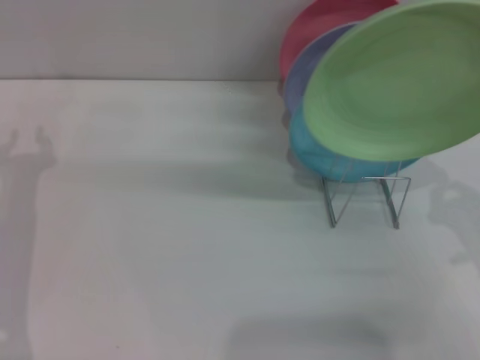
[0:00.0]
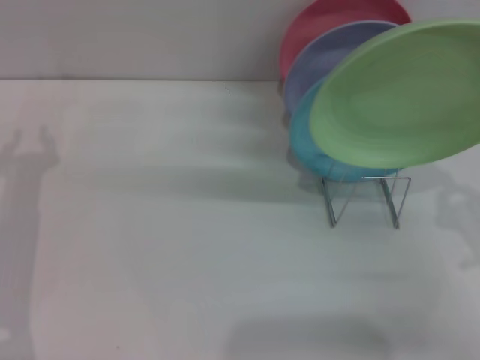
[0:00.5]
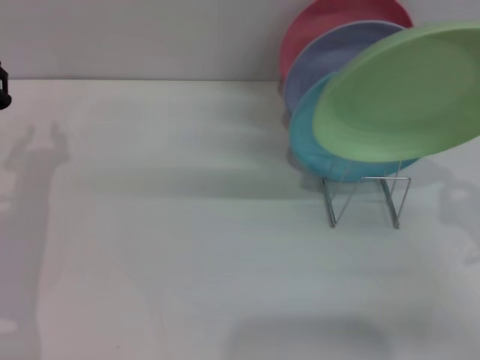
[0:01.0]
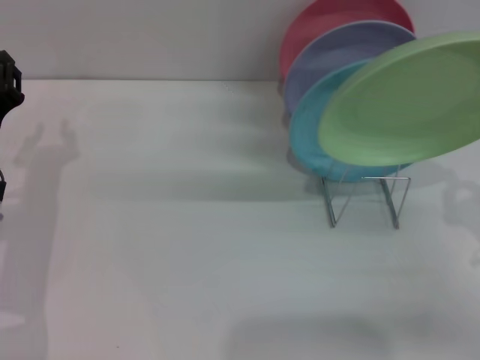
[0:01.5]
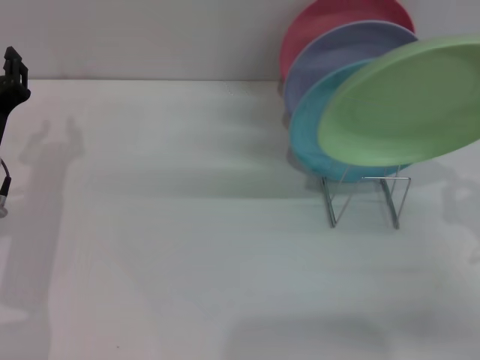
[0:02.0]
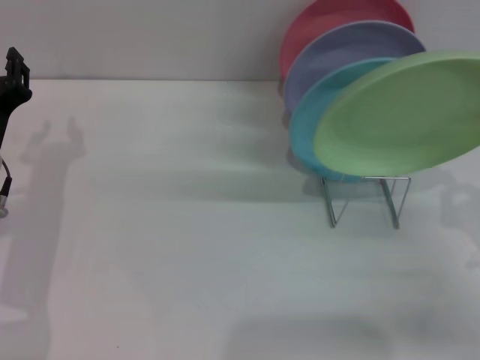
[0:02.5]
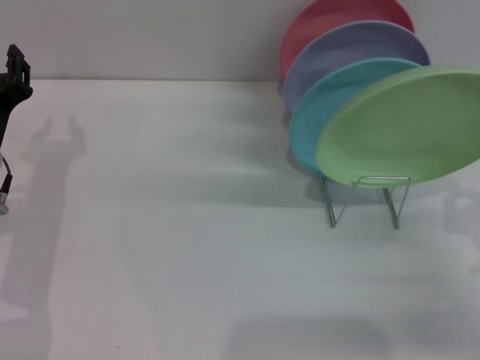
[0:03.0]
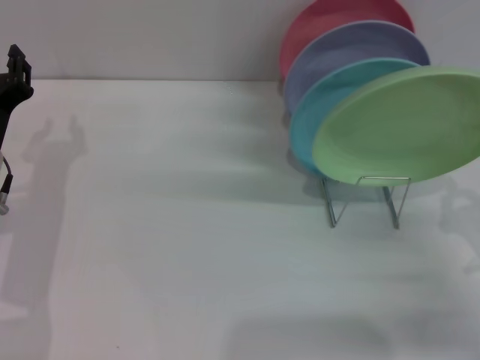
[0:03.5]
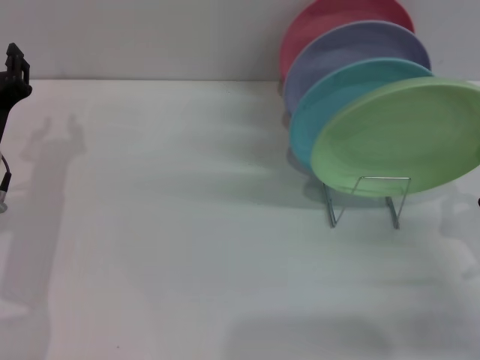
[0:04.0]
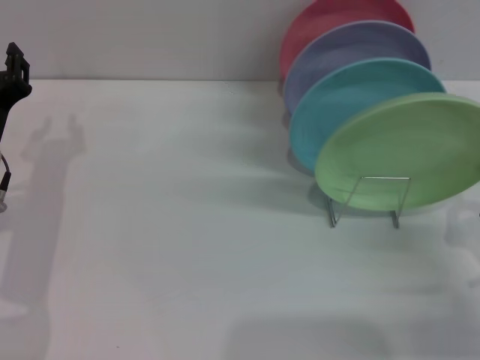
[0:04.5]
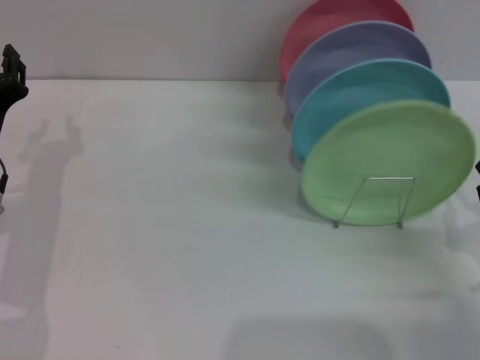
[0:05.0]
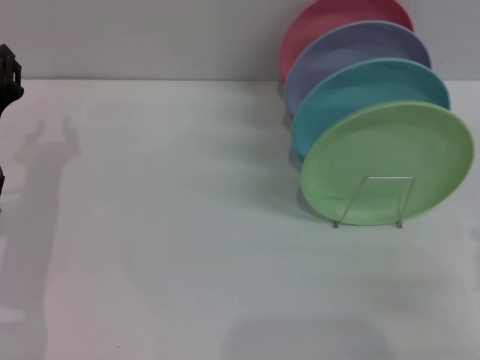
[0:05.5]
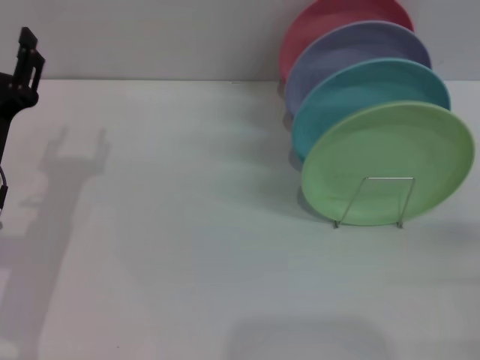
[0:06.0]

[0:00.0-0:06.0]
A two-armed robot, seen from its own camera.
Task of the whole recording: Grip the plate with one hand, pass it to the other, then set it on the shelf.
Step, 0:00.0 to 0:05.0: Place the plate on the shelf with the right gripper.
0:00.0 to 0:02.0: The right gripper ends up roughly 5 cm from where it was.
0:02.0 to 0:04.0: The grippers make only small movements.
0:04.0 to 0:06.0: The right gripper heads to the right, covering approximately 5 cm, reaches approximately 10 cm backward, then returns, and opens up.

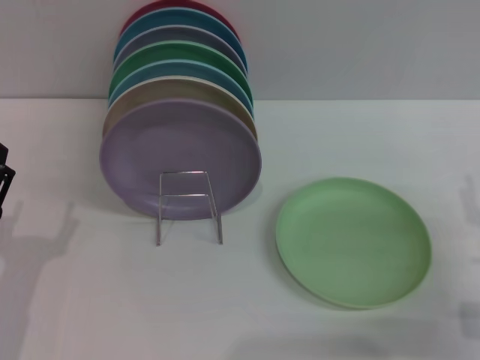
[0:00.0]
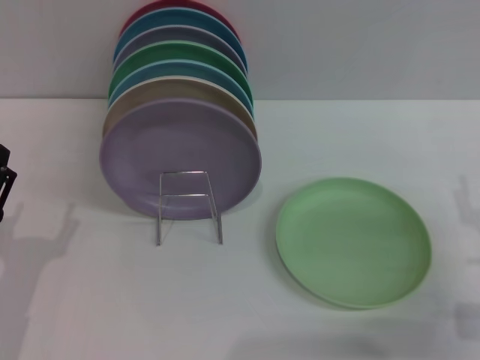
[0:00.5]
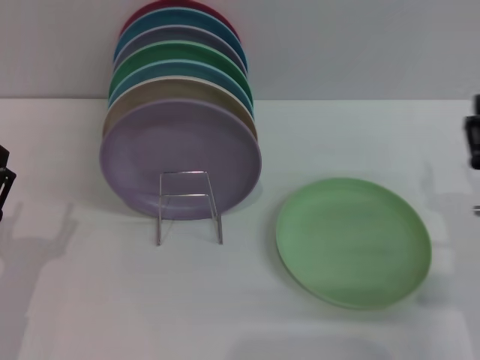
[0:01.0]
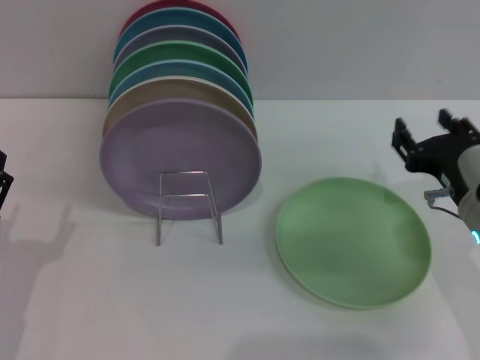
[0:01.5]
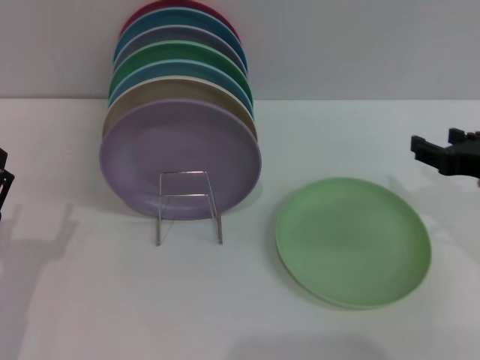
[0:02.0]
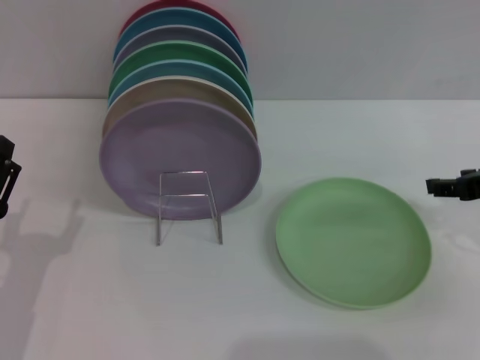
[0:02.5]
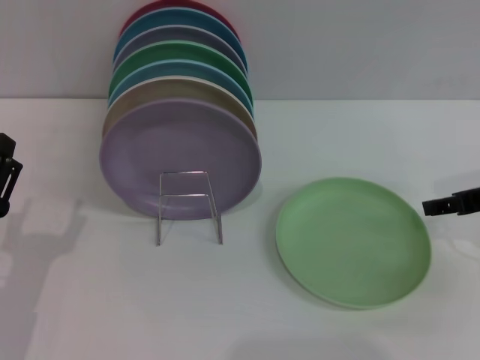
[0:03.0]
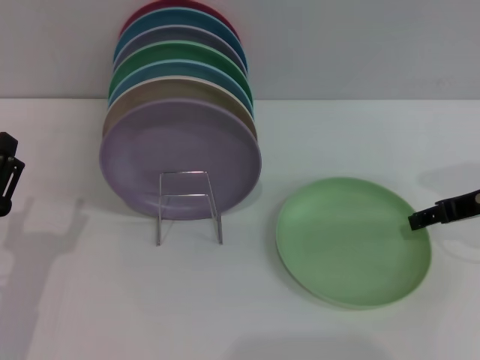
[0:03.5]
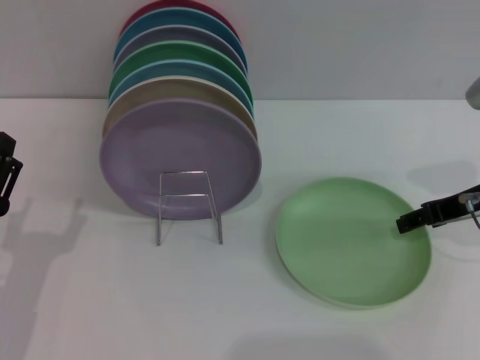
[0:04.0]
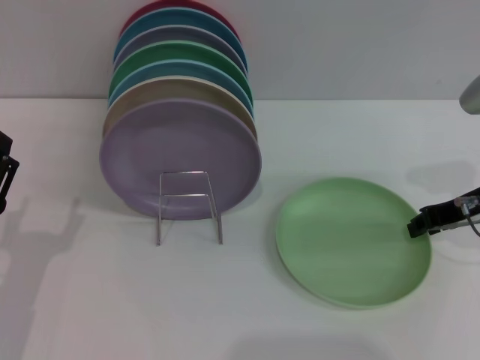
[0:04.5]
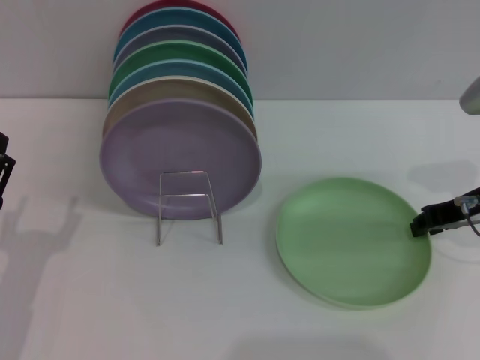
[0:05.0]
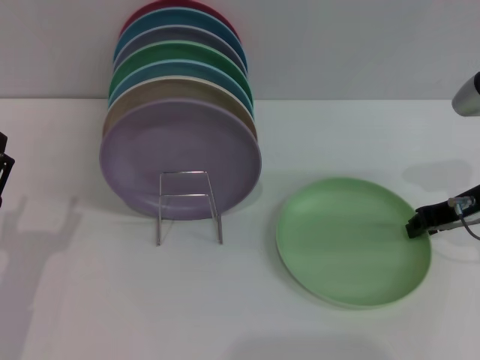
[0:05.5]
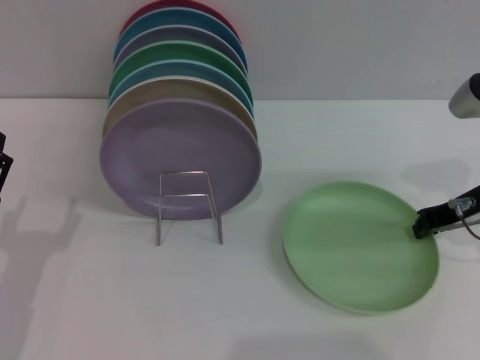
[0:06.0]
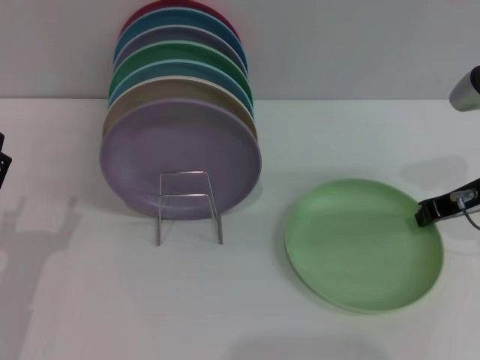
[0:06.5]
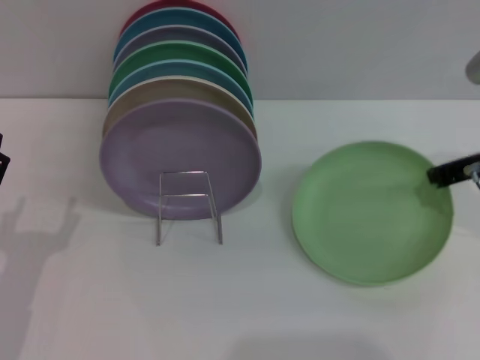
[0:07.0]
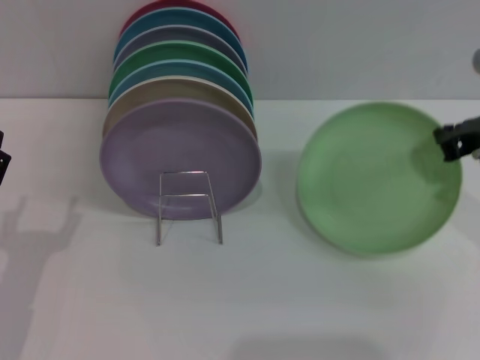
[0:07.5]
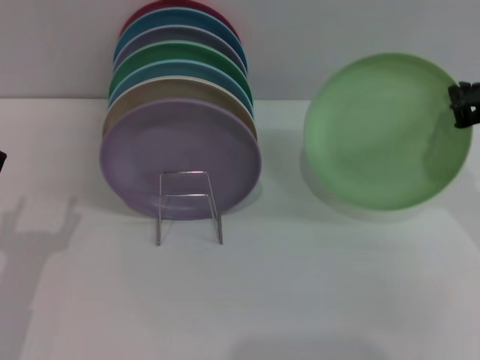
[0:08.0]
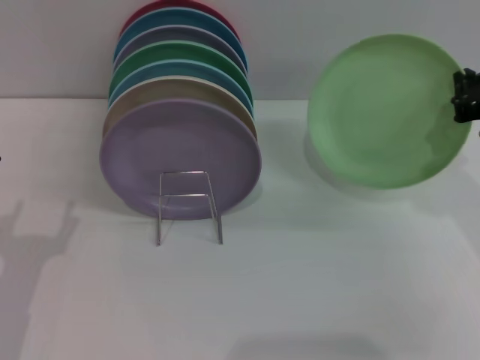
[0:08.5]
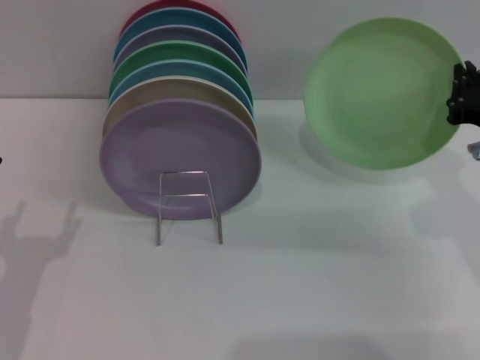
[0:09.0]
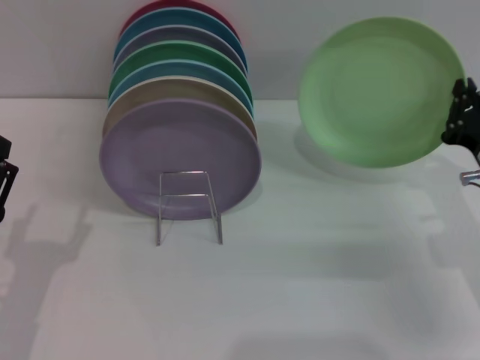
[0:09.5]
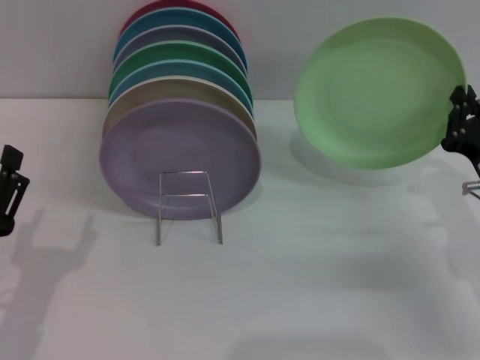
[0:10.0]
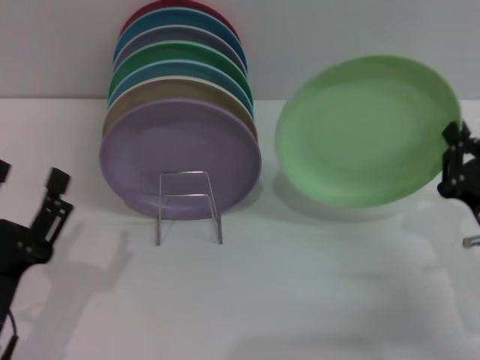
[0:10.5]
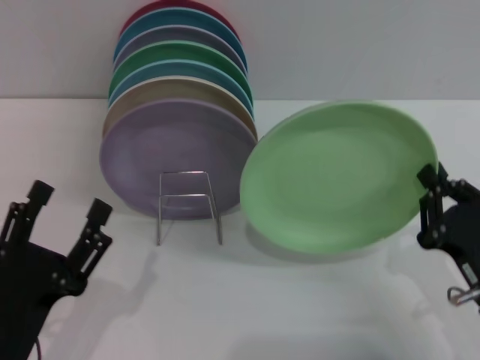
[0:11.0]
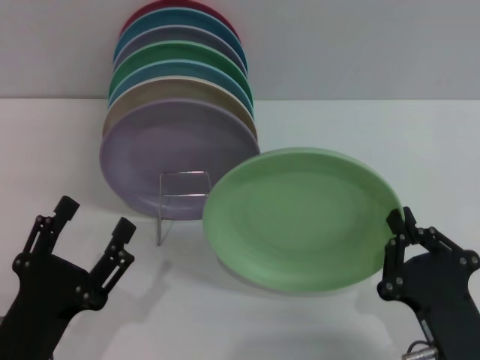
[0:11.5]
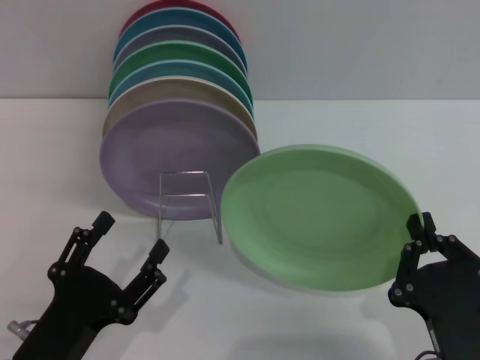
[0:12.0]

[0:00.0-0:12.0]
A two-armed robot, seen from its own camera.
Task of the whole recording: Grip the plate with one hand, pass it to the other, then set it on the shelf.
Step, 0:00.0 to 0:07.5: Pick up the plate with the right gripper.
0:00.0 to 0:02.0: The right gripper travels upward and forward by approximately 10 cm.
0:02.0 to 0:04.0: The right gripper heads forward, covering roughly 5 cm.
0:04.0 to 0:06.0: The right gripper closes up.
0:06.0 to 0:08.0: The right gripper travels upward by about 5 cm.
0:08.0 to 0:10.0: The right gripper heads downward, covering roughly 15 cm.
0:10.0 to 0:12.0: The left gripper is displaced to the right by roughly 5 cm. The right gripper travels backward and to the left by some 20 cm.

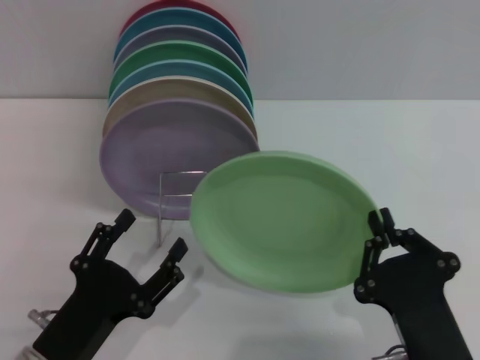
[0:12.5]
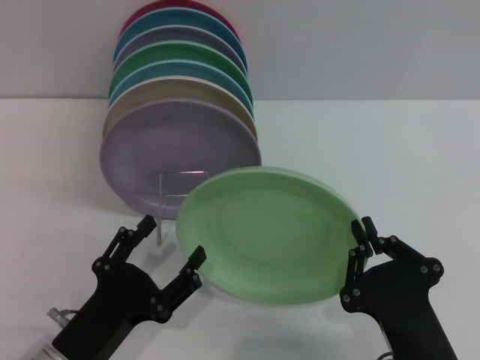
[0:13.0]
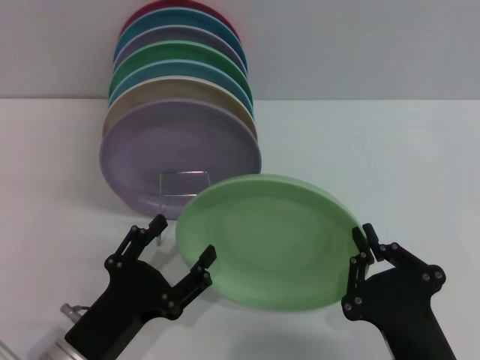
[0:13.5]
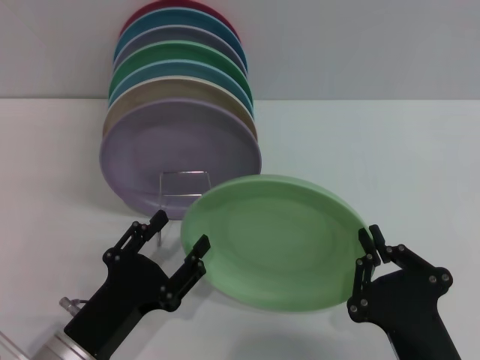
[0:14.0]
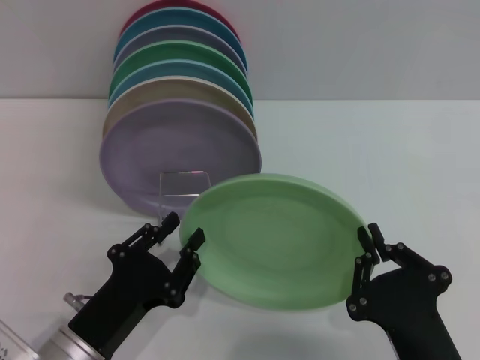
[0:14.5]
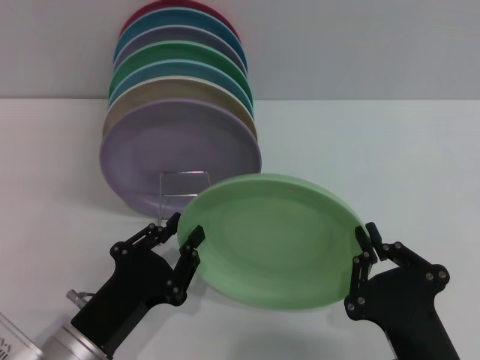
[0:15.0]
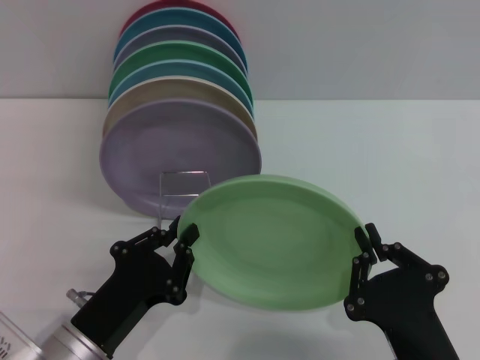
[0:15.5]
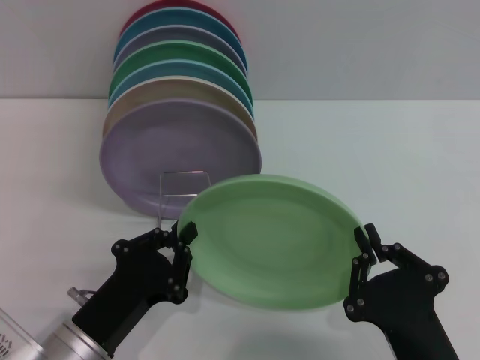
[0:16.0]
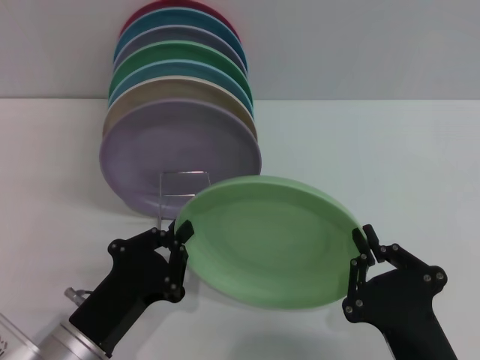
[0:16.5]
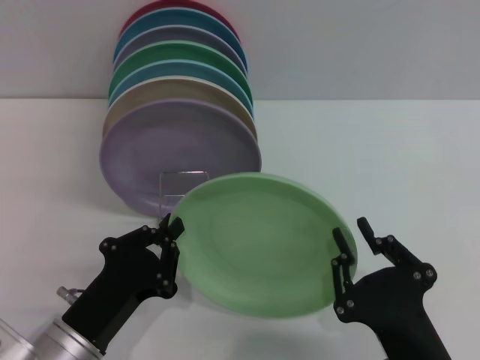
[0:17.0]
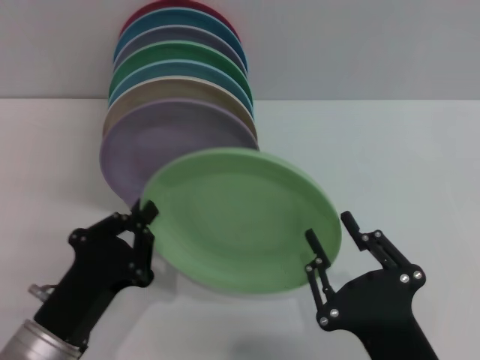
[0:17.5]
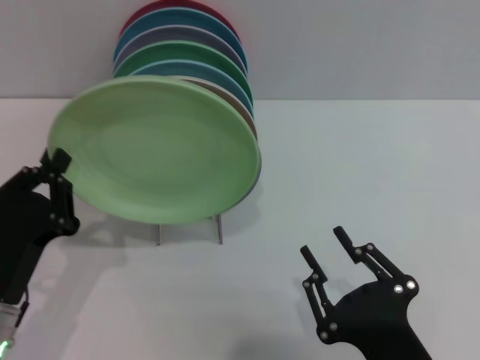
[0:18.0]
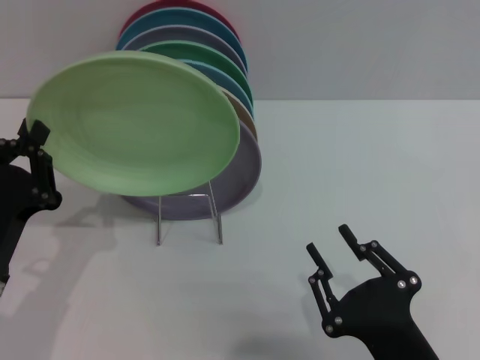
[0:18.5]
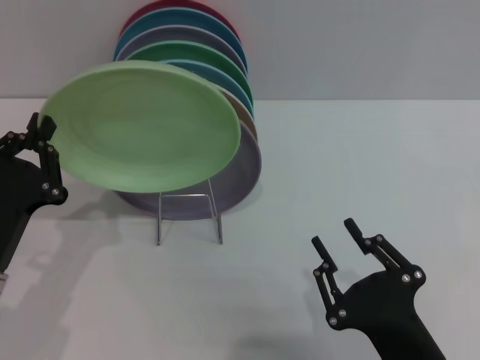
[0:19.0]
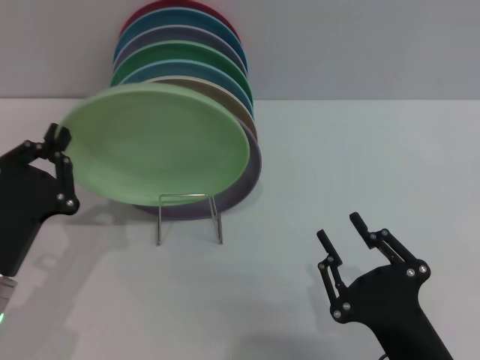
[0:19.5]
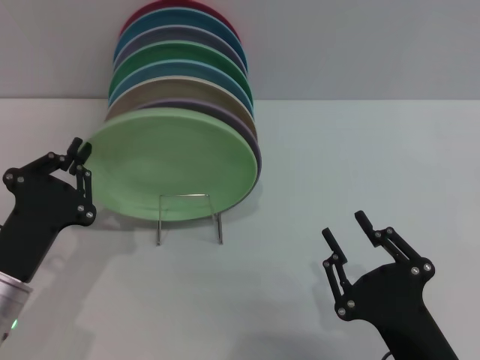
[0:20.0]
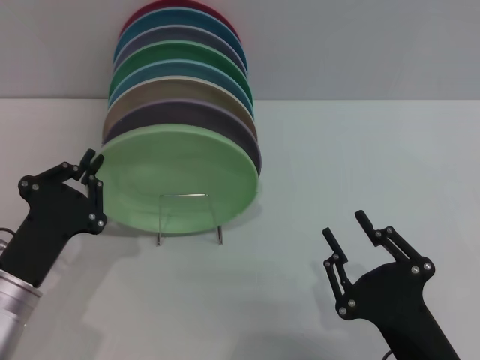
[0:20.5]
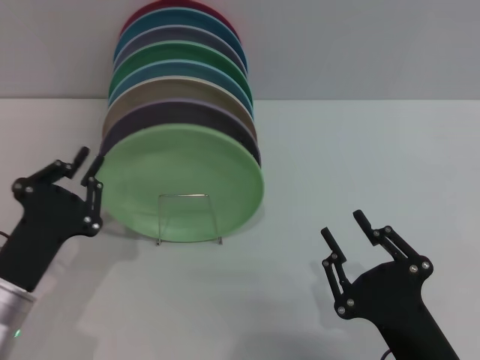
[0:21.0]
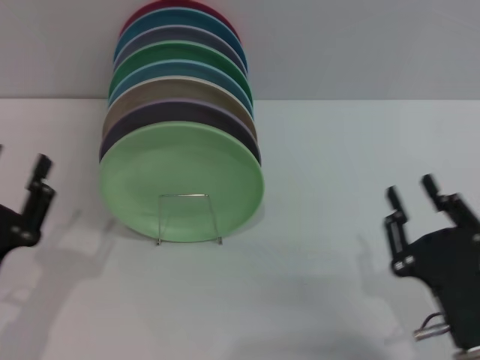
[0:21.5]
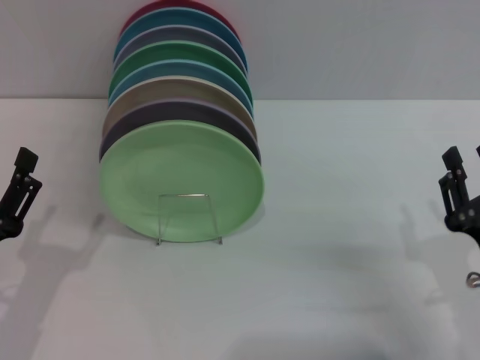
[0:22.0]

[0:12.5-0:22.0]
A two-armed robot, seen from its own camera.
Task of the whole recording: Grip the plate with one hand, pass it to the other, then set it on the shelf.
Step, 0:12.5 to 0:17.5: Pass the plate from the right gripper to the left gripper.
Step, 0:18.0 to 0:21.0: Place the plate on the shelf with the left gripper.
0:12.5 to 0:14.5: The left gripper closes up.
0:14.5 to 0:16.5: The left gripper closes.
0:16.5 to 0:18.0: The left gripper heads to the left, covering some 5 cm, while the right gripper opens.
0:20.0 to 0:22.0: The right gripper moves to the right and forward, about 10 cm, while the left gripper opens up.
